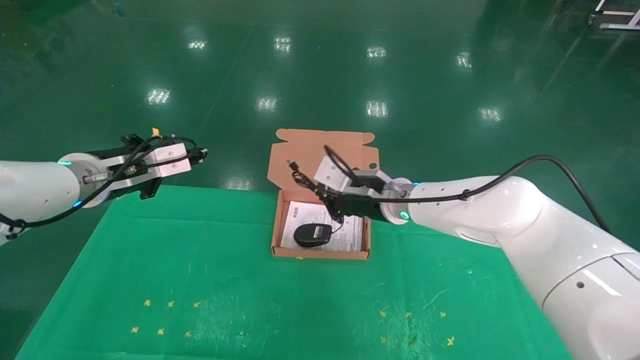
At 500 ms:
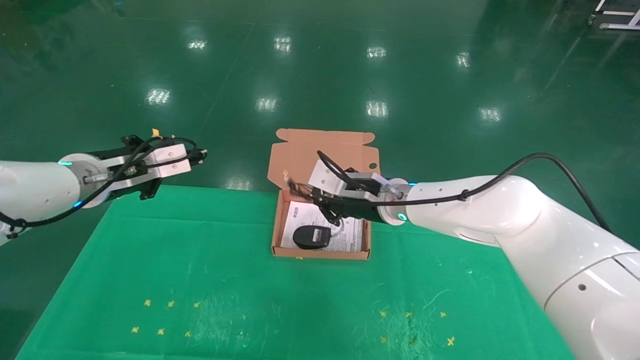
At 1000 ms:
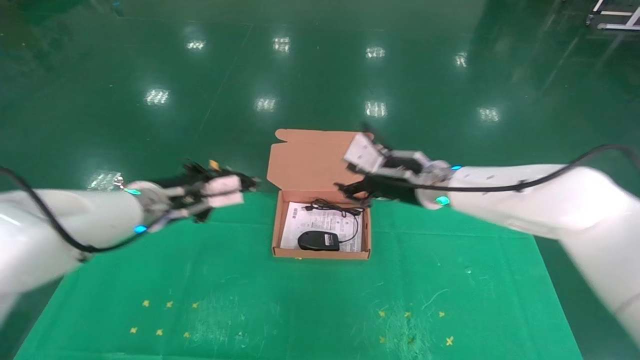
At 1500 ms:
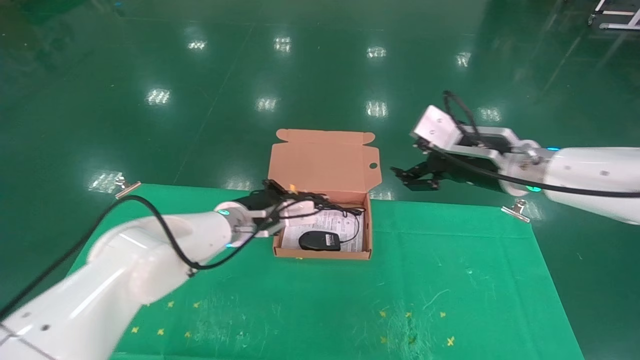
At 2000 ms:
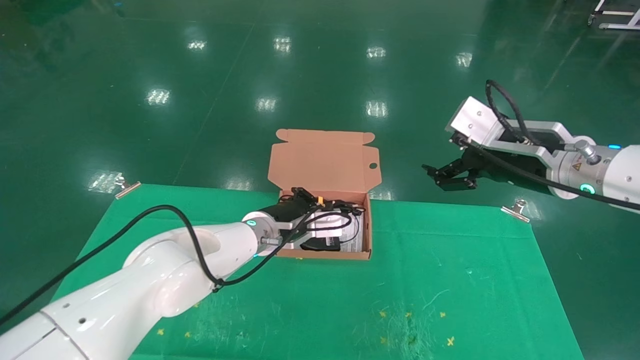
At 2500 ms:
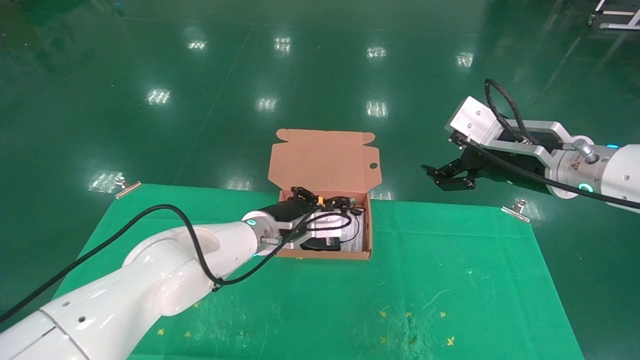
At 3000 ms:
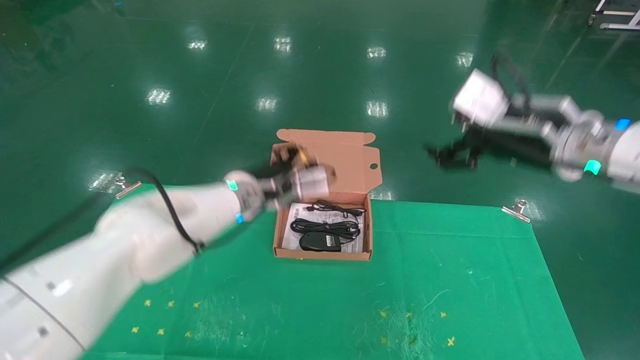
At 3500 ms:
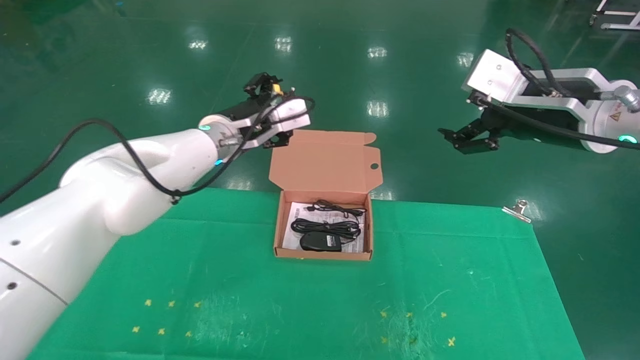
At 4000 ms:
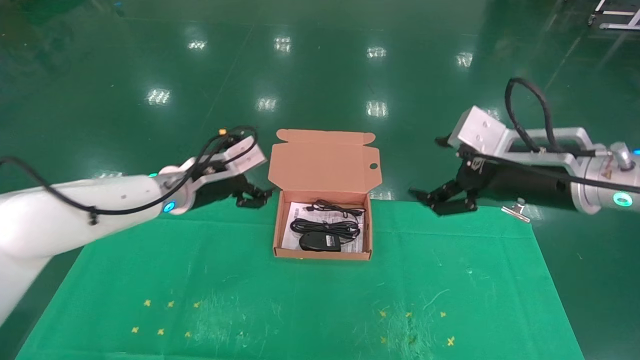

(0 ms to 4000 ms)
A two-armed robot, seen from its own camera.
Task of the whole recording: grasp data cable left put into box grasp mouse right put into box.
Step, 0 ms - 3500 ms: Place the mouse and power cord into the box.
0 ms - 2000 ms: The left gripper travels to the right and downward by some 25 cm, while the right gripper travels to the right, backward and upward by some 20 cm, and opens.
2000 ms - 4000 ms: The left gripper shifts roughly 15 cm to the left and upward, and opens up.

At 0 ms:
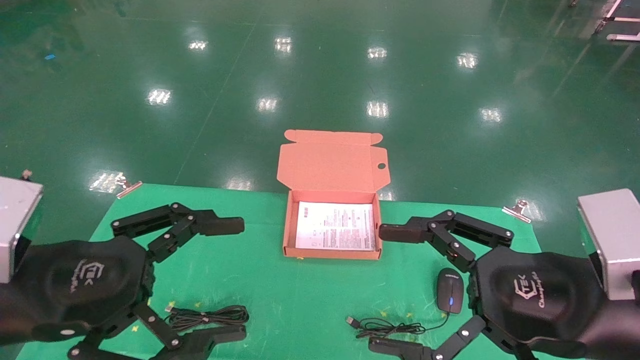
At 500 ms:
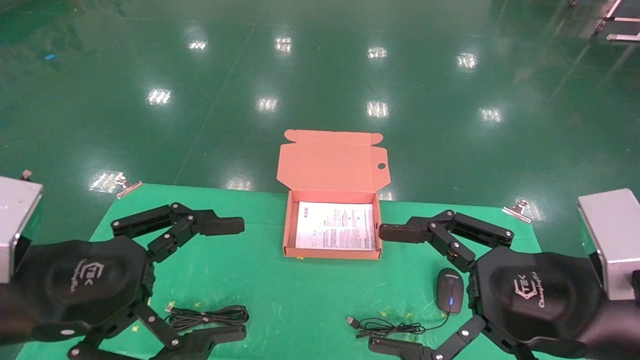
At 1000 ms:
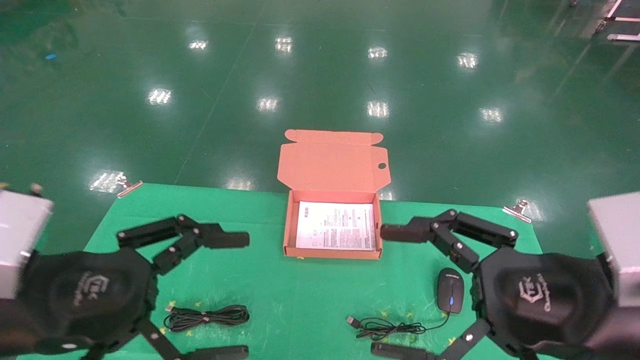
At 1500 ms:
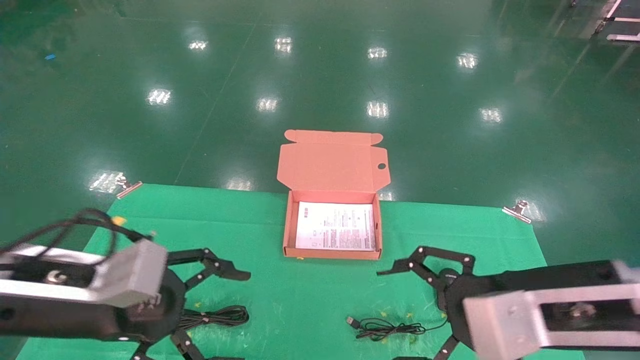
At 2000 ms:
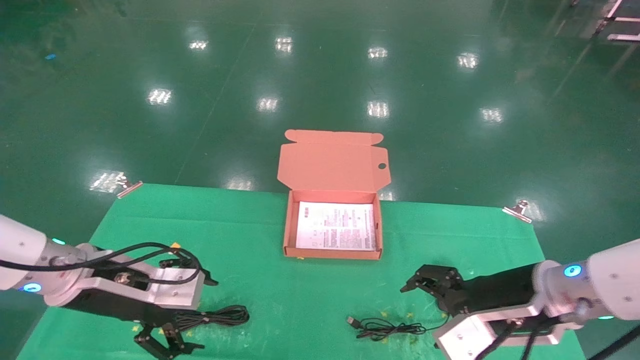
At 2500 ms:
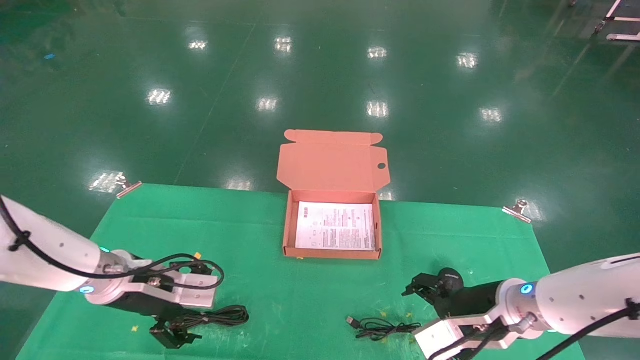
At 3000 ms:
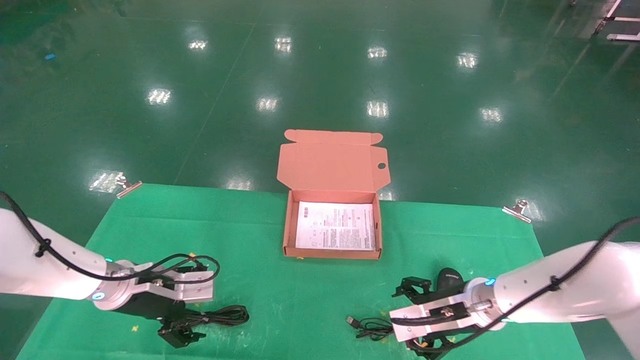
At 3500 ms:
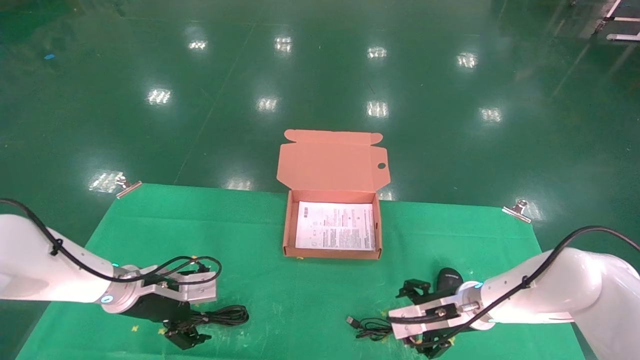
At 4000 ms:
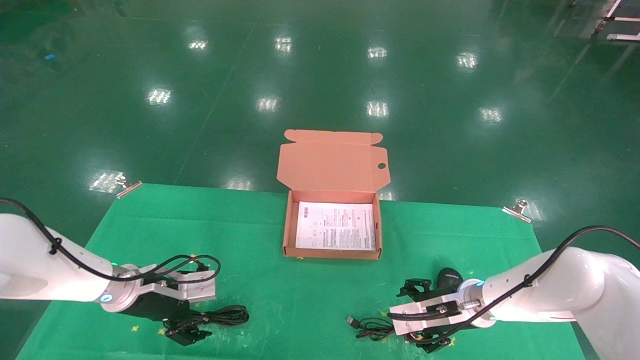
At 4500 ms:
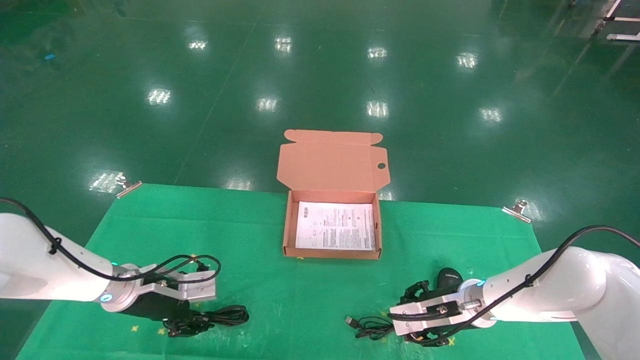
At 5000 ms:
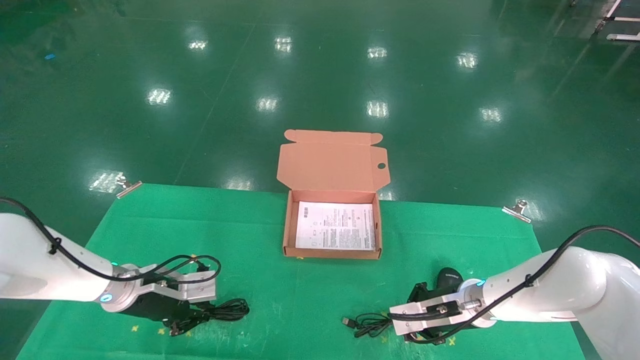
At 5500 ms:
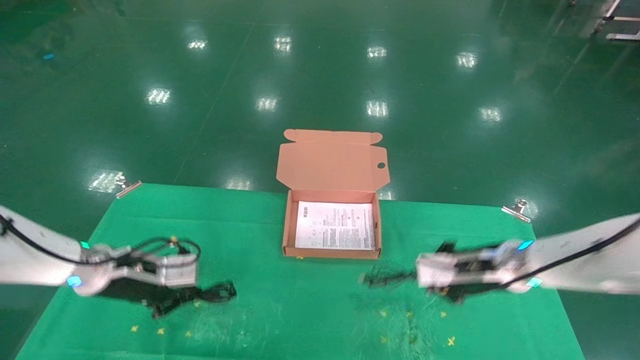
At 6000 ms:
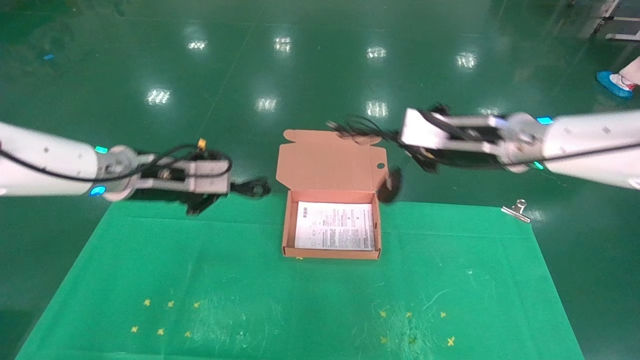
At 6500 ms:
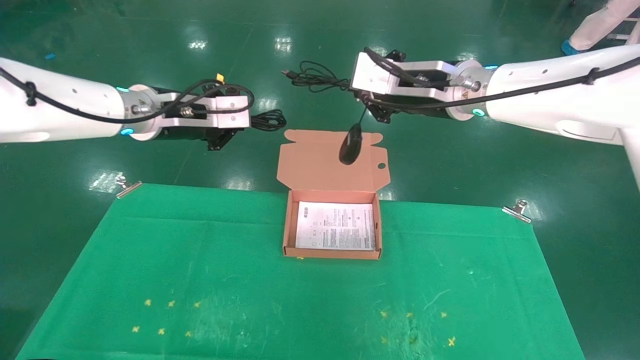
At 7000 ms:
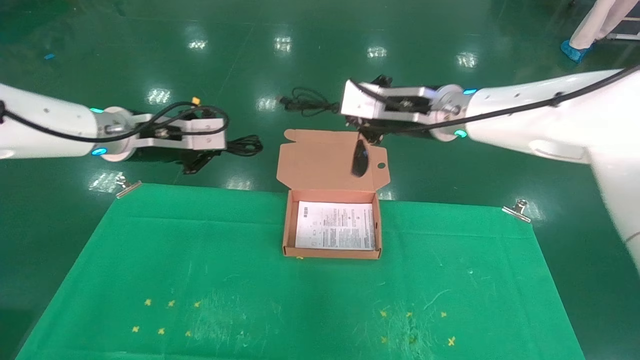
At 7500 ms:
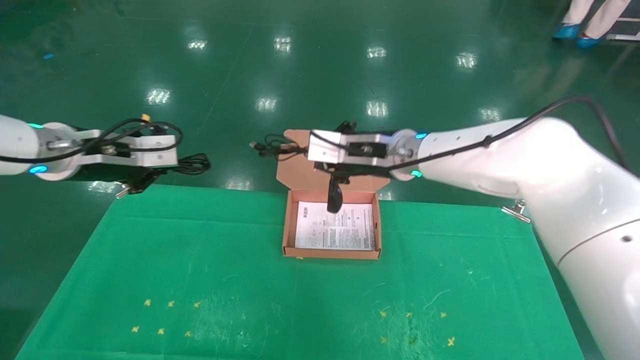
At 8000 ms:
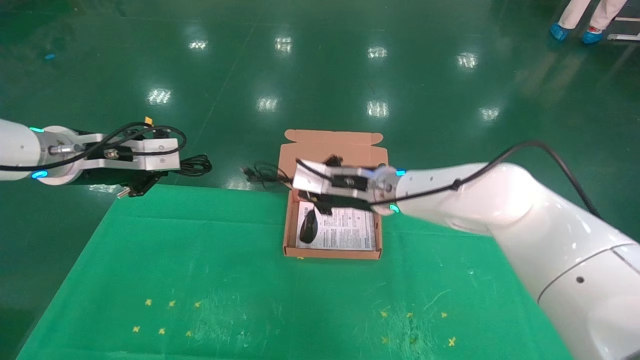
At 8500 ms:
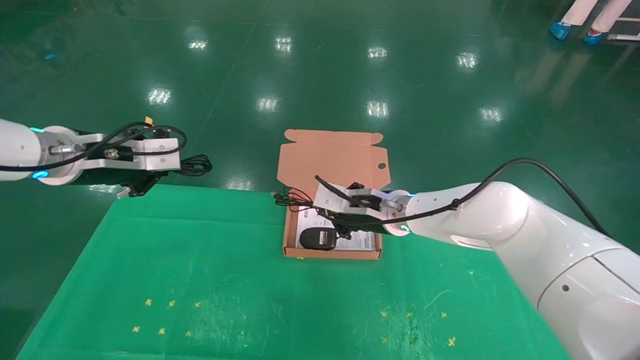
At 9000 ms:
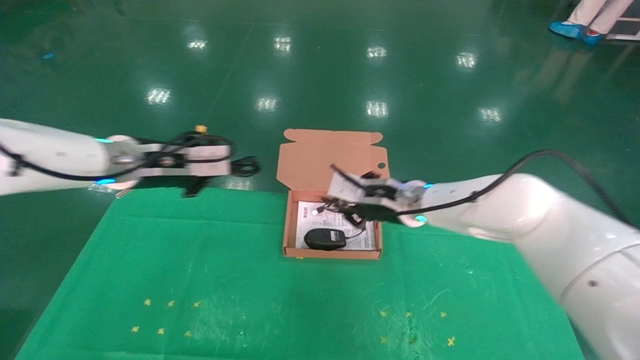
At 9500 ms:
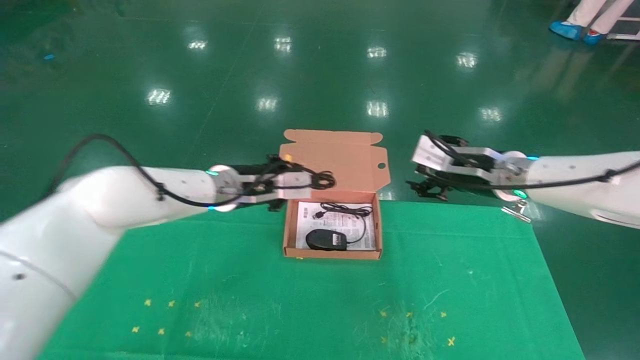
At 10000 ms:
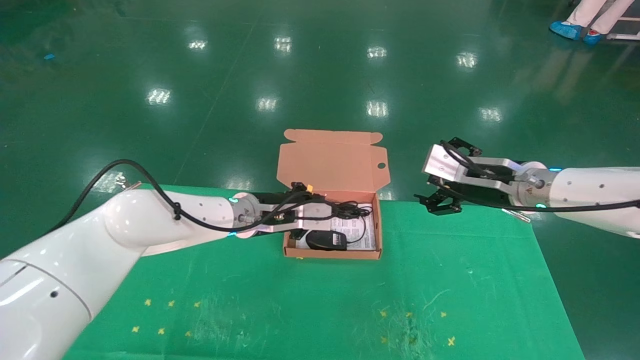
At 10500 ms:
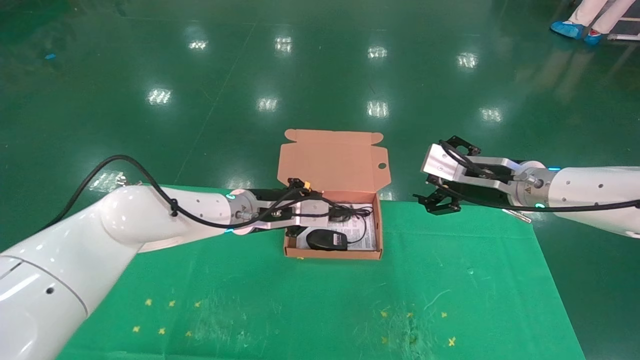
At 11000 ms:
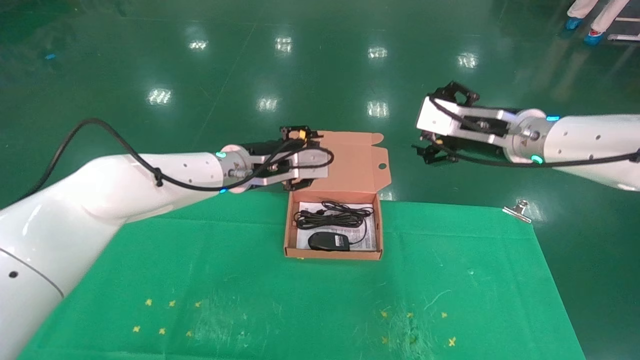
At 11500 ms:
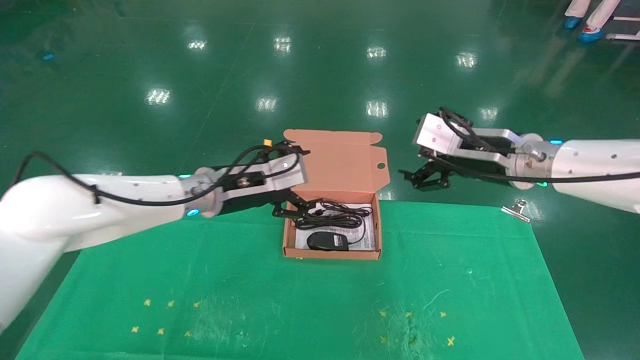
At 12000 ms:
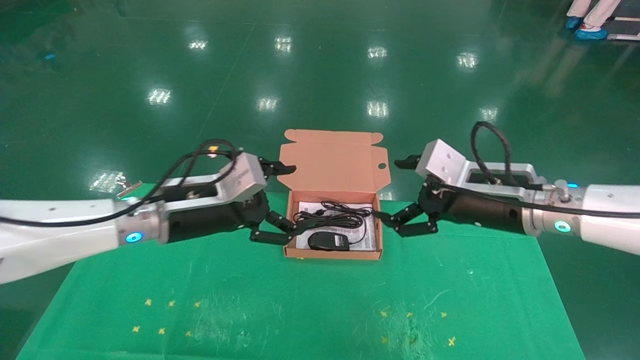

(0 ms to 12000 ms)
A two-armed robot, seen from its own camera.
Task of the whole recording: grasp data cable left put into box grasp mouse right put into box.
Step, 1000 ms - 5000 ms: Grab and pick up both the mouse and power cord from the accessory packaging area at the same time.
Step, 5500 ms - 10500 ms: Place the mouse and power cord into the box.
0 ms - 2000 ms: The grippers both shift forward and downward by some 15 cm.
2000 ms - 4000 ms: The two grippers go approximately 15 cm forward and downward.
4000 ms - 6000 ms: Both grippers travel together upward, about 25 cm. The right gripper closes its fingers, while the left gripper closes up.
6000 ms - 8000 ms: The left gripper heads to the left, covering some 5 cm; the right gripper moves to the left and downward, about 15 cm.
8000 ms - 10000 ms: The right gripper heads to the right, covering some 20 cm, and opens. Meanwhile the left gripper travels to the right, downward and forward by roughly 25 cm.
10000 ms - 12000 ms: The right gripper travels backward by about 5 cm. The left gripper shifts about 10 cm backward and to the left, and opens up.
